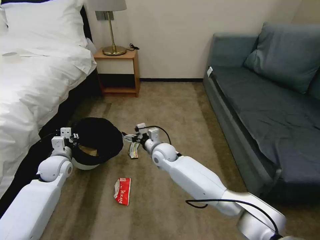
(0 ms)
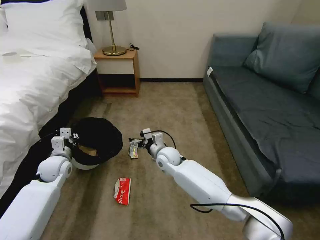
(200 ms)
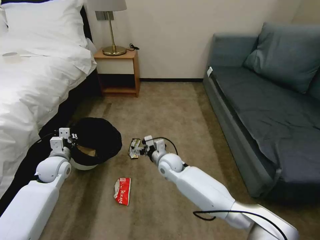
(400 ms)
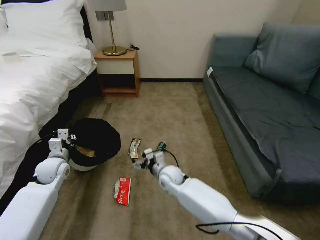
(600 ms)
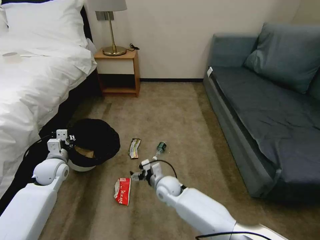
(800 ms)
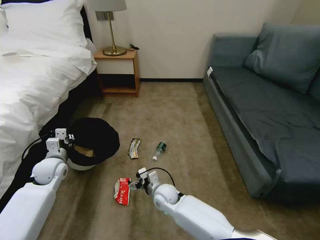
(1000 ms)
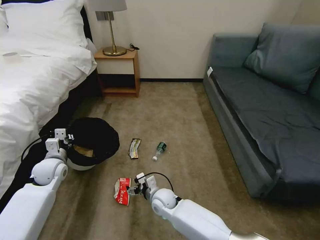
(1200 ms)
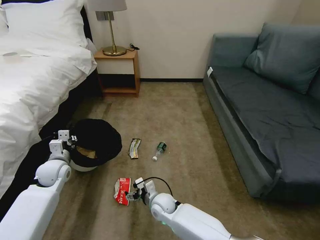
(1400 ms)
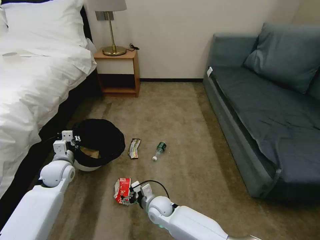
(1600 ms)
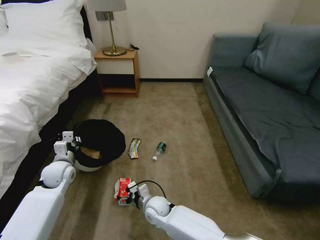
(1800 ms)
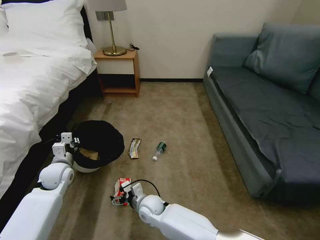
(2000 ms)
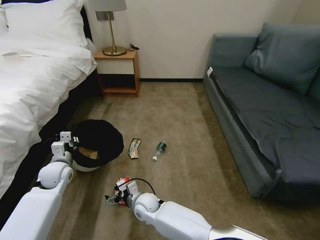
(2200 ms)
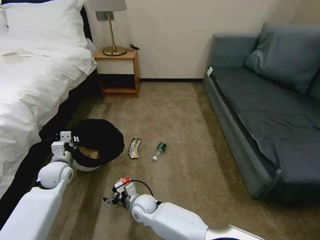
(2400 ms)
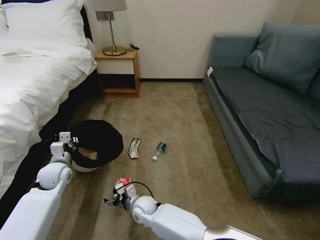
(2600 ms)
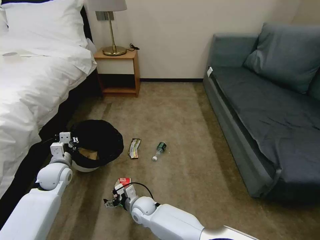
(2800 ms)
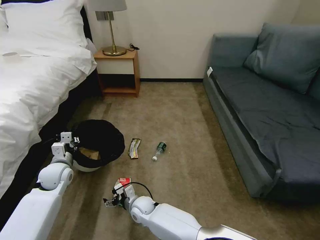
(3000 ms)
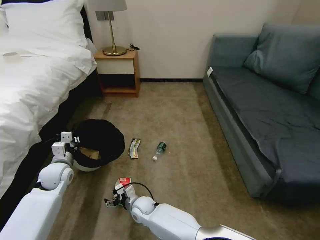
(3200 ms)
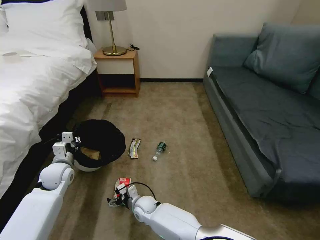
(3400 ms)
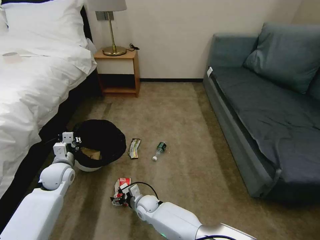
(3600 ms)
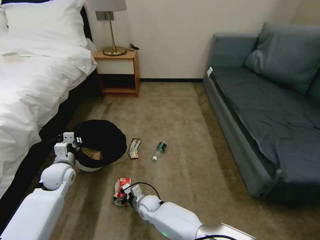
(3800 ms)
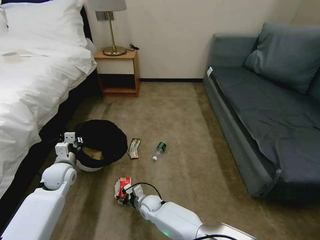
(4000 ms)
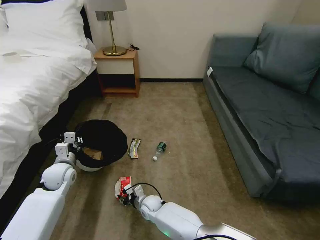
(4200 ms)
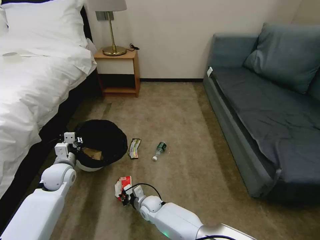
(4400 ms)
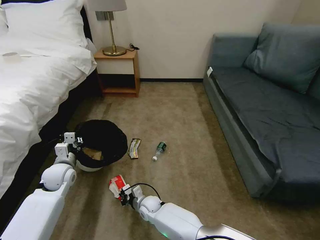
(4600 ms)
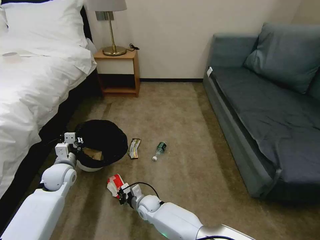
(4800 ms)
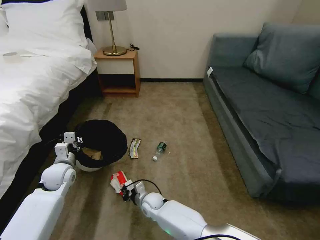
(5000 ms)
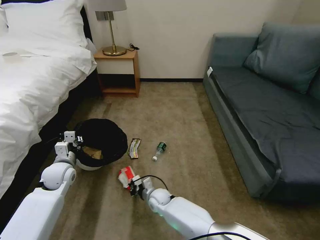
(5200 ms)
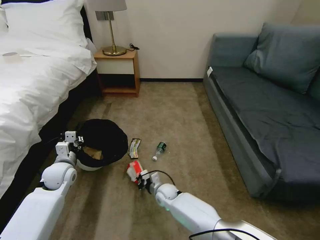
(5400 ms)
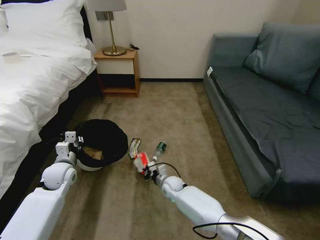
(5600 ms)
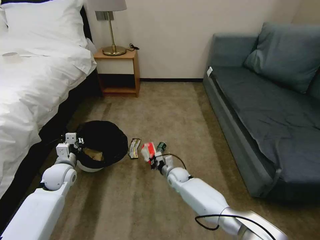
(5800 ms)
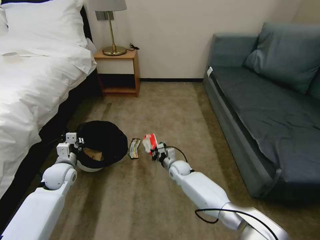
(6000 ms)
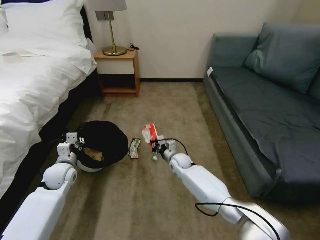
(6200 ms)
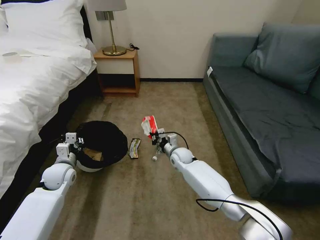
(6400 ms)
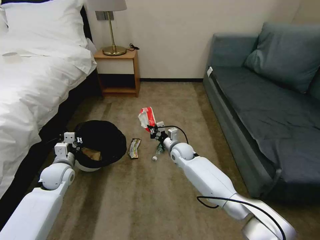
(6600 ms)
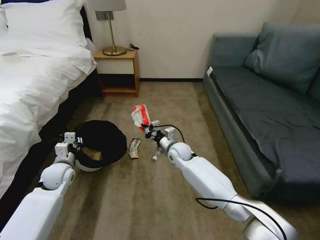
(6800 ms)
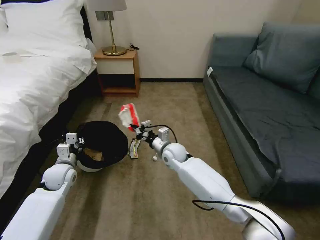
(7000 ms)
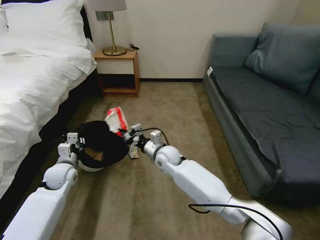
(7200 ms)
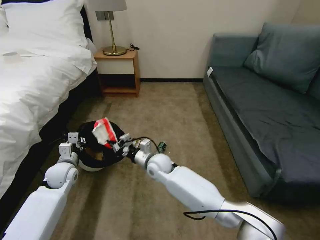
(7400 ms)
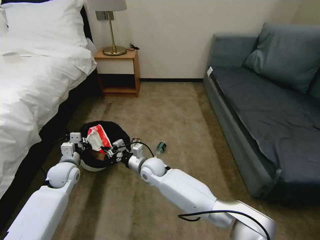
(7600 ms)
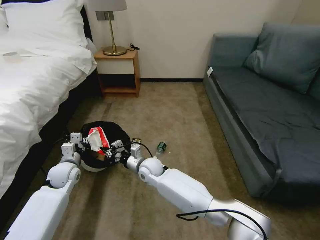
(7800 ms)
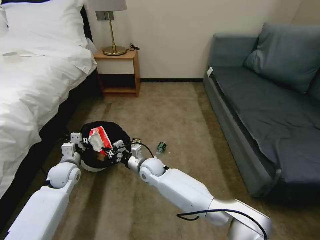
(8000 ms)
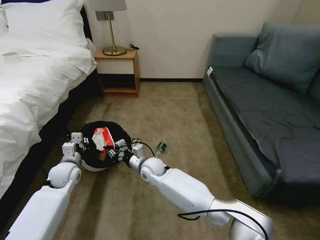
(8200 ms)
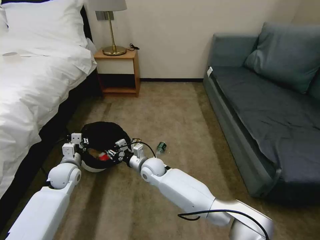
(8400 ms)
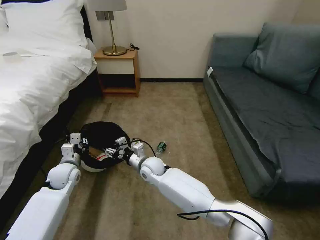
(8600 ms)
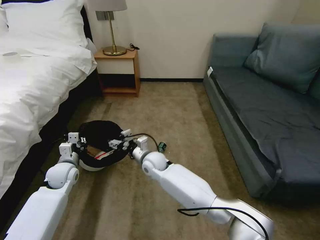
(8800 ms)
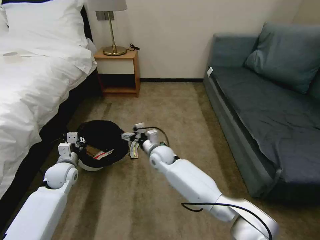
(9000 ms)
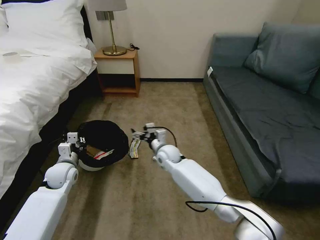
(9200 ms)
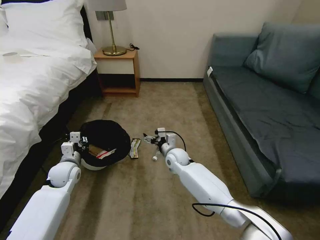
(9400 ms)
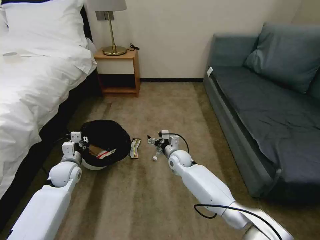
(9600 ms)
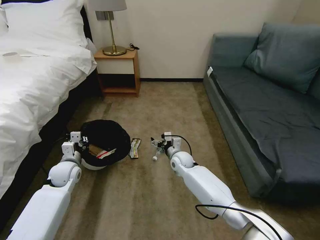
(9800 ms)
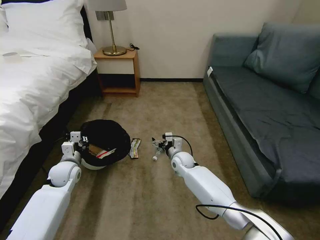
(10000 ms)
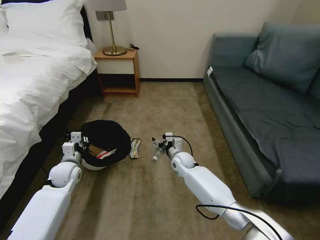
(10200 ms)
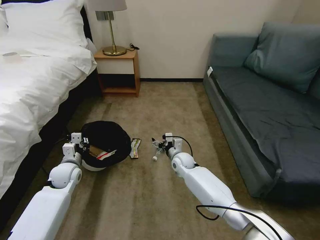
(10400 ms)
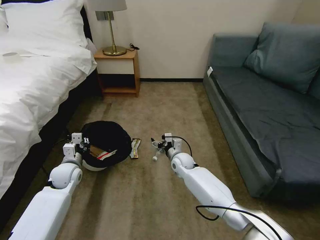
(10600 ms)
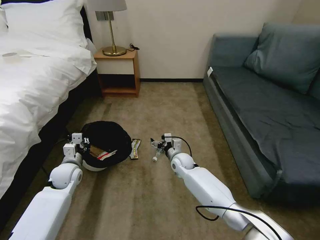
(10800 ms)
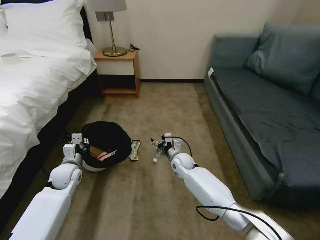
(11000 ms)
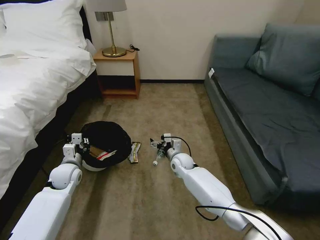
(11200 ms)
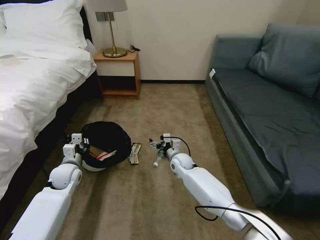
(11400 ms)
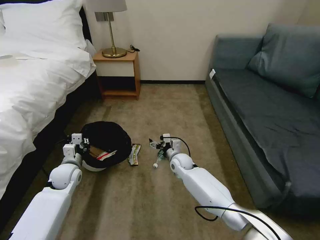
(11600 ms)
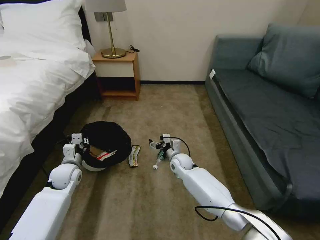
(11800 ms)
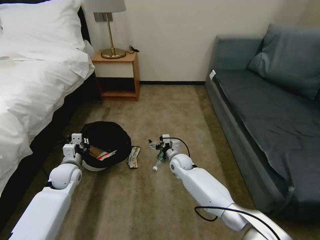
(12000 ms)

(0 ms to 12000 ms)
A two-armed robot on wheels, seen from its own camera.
Task of the whole recording: Pick up the trash bin, then pick up the garbage on the floor and place it into the trash bin.
0 ms - 1600 ms: The right gripper travels backward and downward by some 20 cm.
1600 ms - 3000 ms: The right gripper moves to the left, about 5 cm.
3000 ms - 4400 ms: The right gripper moves approximately 5 cm, and closes.
4400 ms - 6000 ms: The right gripper heads forward, to the right and upward, covering about 20 cm.
6000 ms - 7600 ms: The right gripper goes approximately 15 cm to the left and upward.
7600 ms - 9000 ms: The right gripper shifts by approximately 5 cm, and opens its fingers.
9000 ms - 10400 ms: The right gripper shifts approximately 10 cm to the right and downward.
10400 ms - 12000 ms: Both grippers stay put.

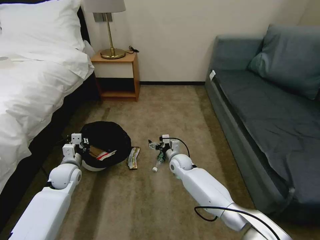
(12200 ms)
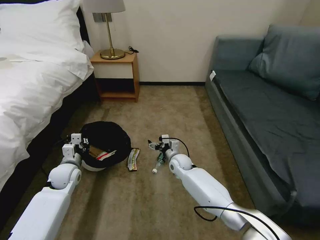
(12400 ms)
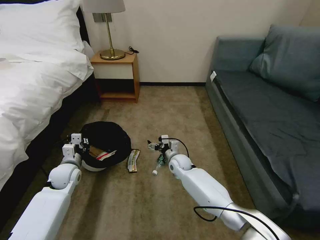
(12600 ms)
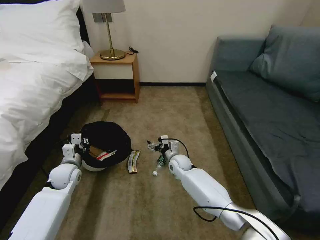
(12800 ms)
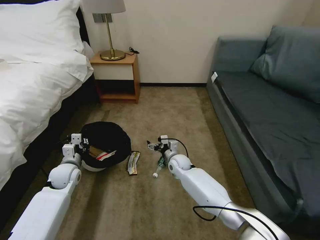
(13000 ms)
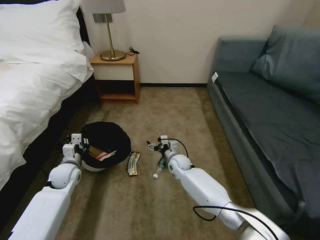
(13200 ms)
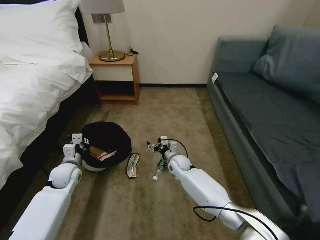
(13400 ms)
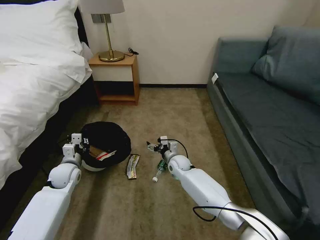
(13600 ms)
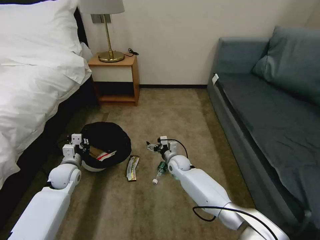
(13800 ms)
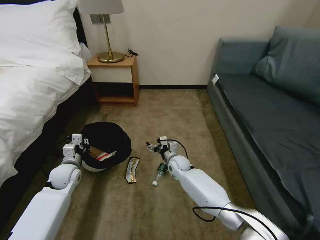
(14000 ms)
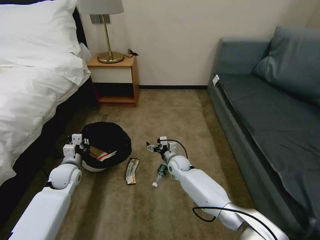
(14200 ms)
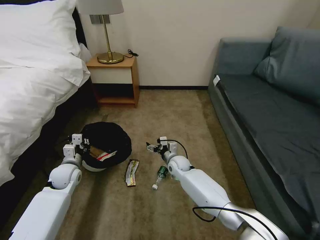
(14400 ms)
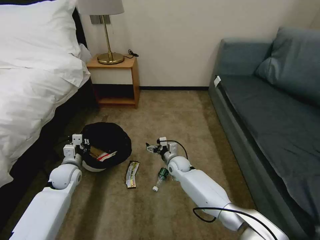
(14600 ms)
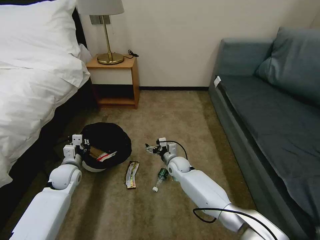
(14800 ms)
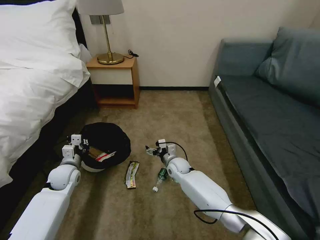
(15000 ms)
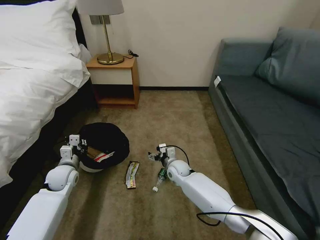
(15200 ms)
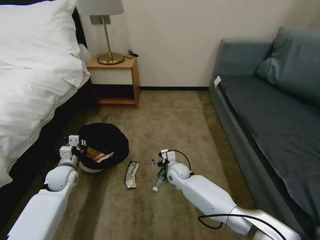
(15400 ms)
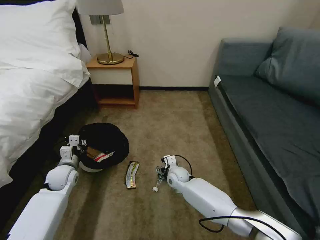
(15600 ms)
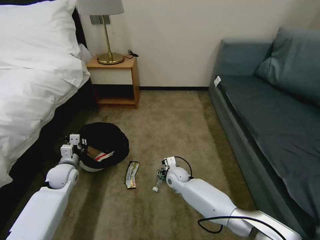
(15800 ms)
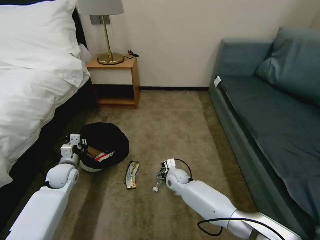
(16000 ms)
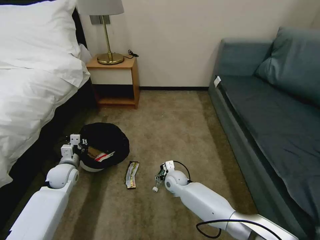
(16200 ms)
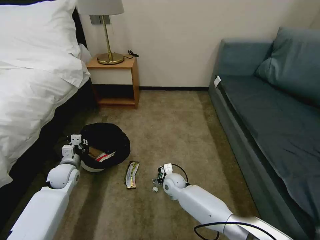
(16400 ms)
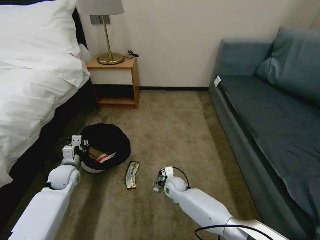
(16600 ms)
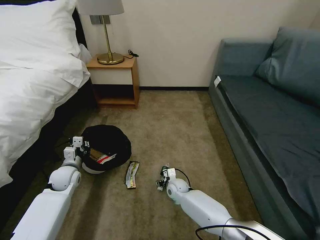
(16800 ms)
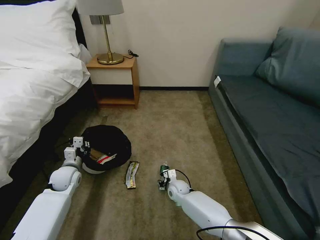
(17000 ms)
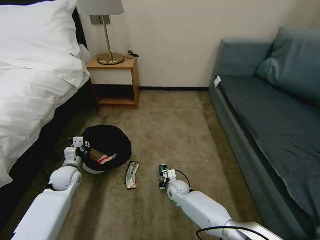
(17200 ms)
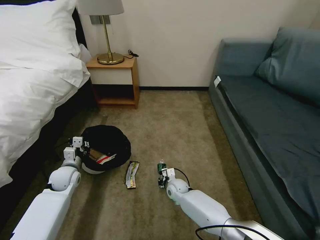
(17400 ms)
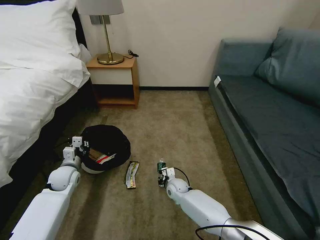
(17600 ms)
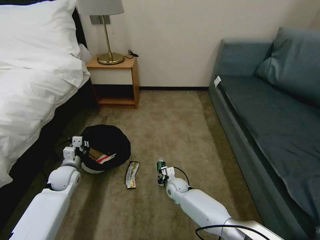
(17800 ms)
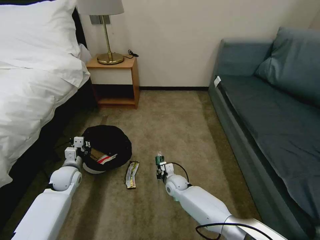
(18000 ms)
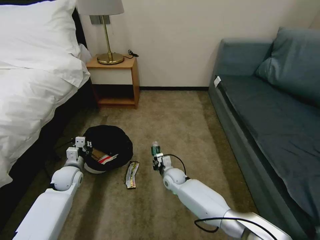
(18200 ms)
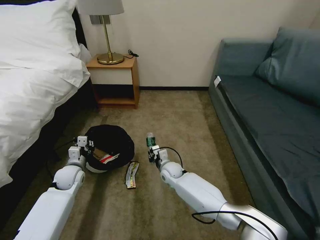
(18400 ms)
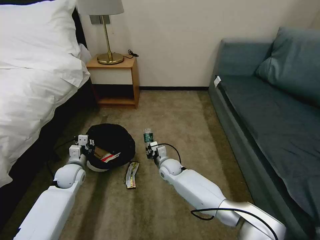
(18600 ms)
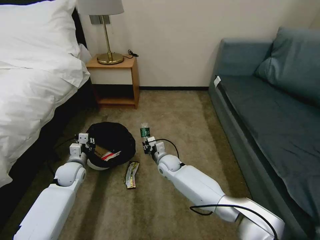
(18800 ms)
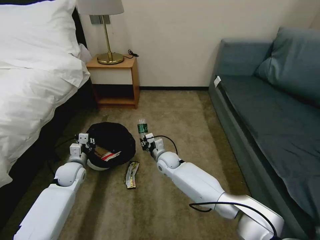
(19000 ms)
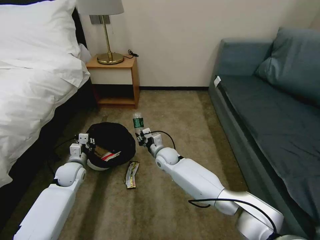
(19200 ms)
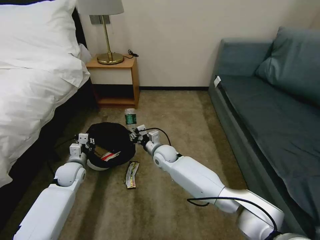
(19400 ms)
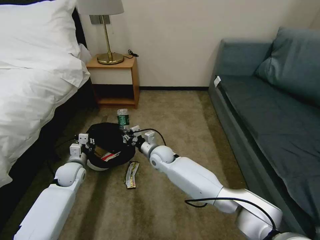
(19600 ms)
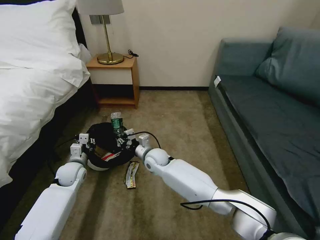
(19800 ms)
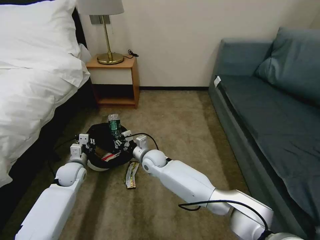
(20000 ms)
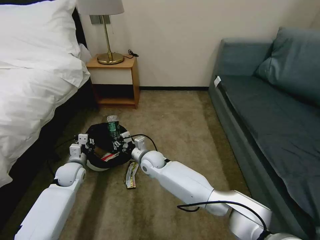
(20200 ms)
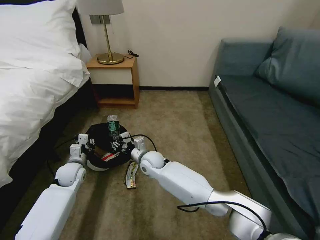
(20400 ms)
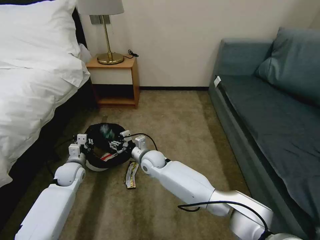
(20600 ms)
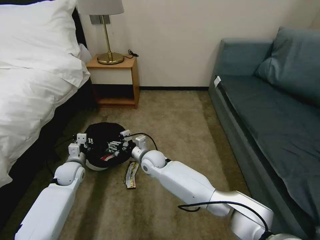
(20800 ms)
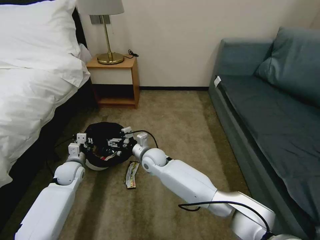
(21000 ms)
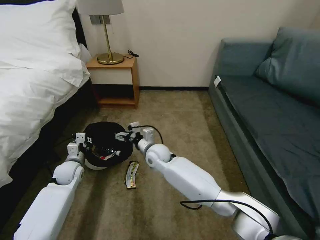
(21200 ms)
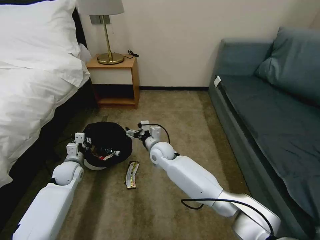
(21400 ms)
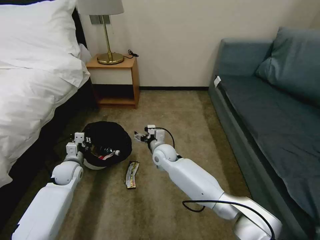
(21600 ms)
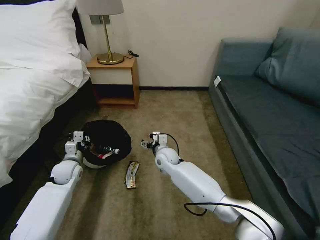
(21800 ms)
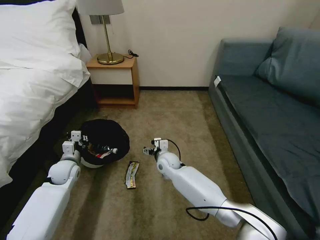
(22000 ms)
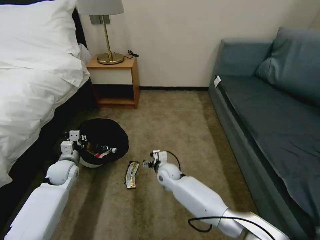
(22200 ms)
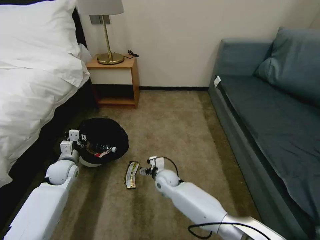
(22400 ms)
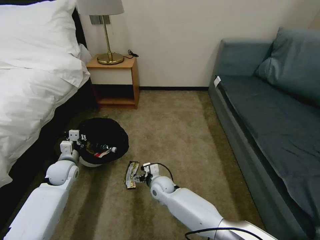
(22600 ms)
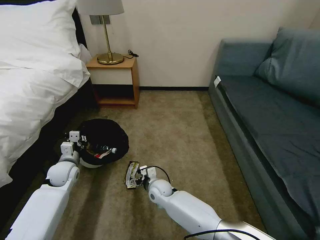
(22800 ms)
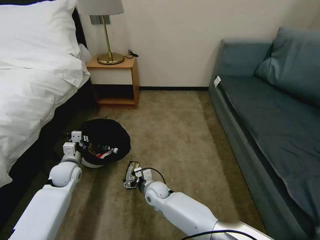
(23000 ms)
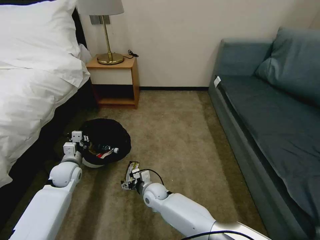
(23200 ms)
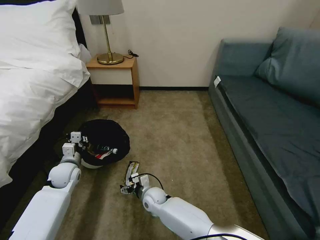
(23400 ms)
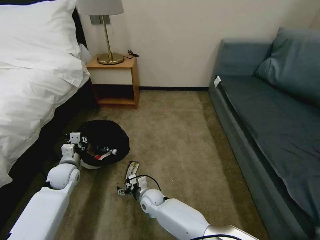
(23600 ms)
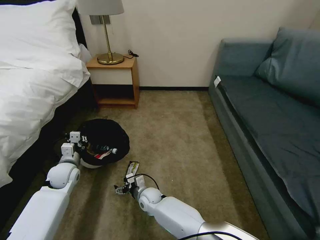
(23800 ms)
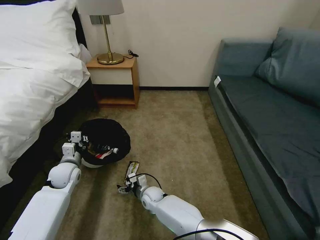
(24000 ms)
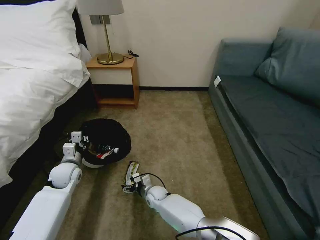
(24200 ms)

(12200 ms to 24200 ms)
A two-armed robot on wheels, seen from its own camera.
Task of the whole recording: Pick up the trash bin, then pick up the garbage on the floor and place it into the trash bin.
12200 ms - 13800 ms: Both grippers stay put.
13800 ms - 15200 ms: There are only small adjustments of the grippers.
15200 ms - 16600 ms: The right gripper moves downward and backward, some 10 cm.
16600 ms - 18200 ms: The right gripper closes up.
18200 ms - 19800 ms: The right gripper is displaced upward and to the left by some 15 cm.
19800 ms - 21200 ms: The right gripper opens up.
21200 ms - 22600 ms: The right gripper goes roughly 15 cm downward and backward.
22600 ms - 24200 ms: The right gripper heads downward, covering approximately 10 cm.
